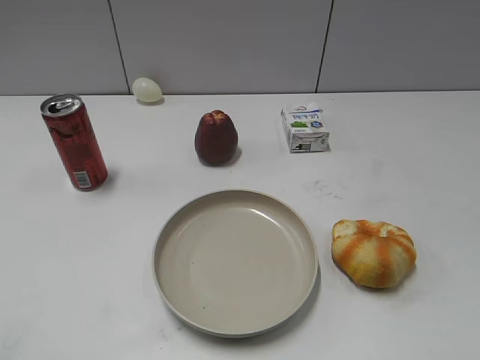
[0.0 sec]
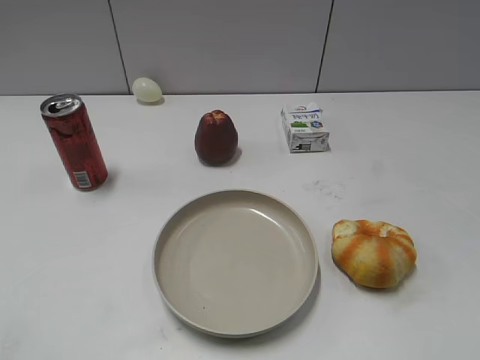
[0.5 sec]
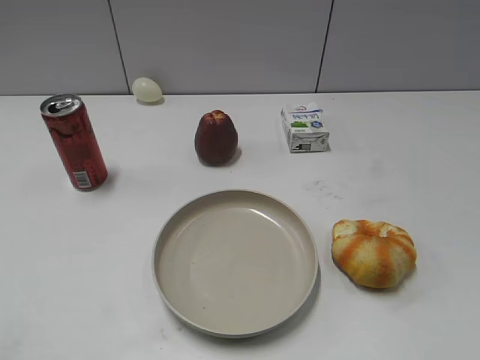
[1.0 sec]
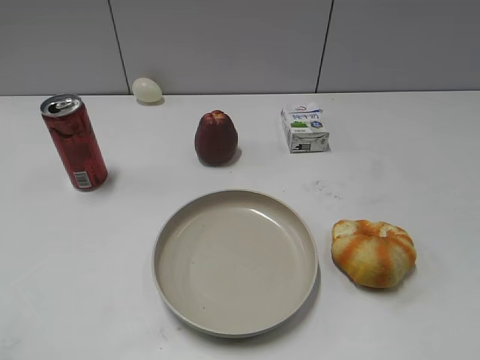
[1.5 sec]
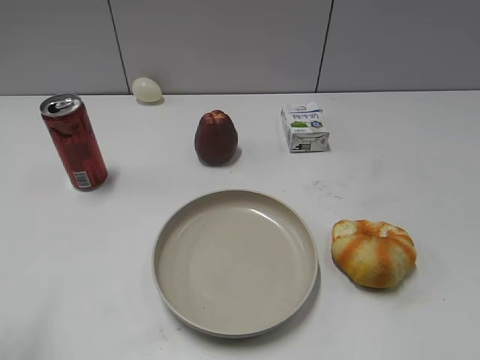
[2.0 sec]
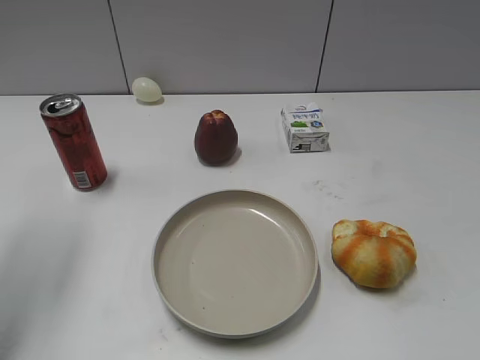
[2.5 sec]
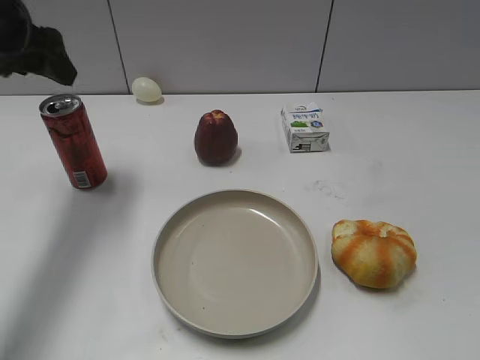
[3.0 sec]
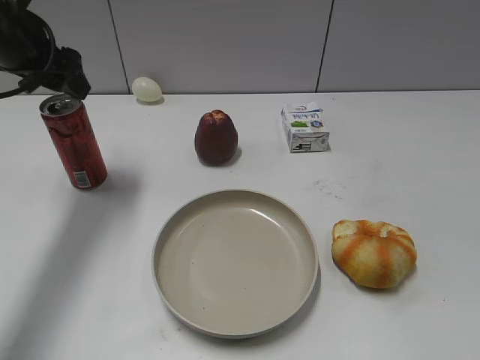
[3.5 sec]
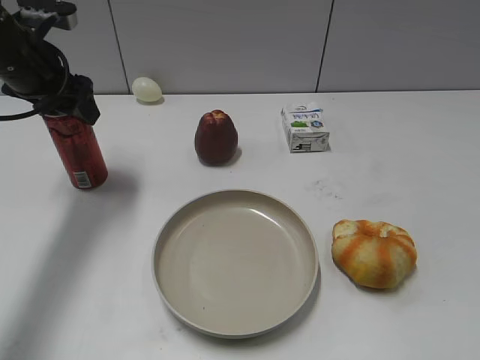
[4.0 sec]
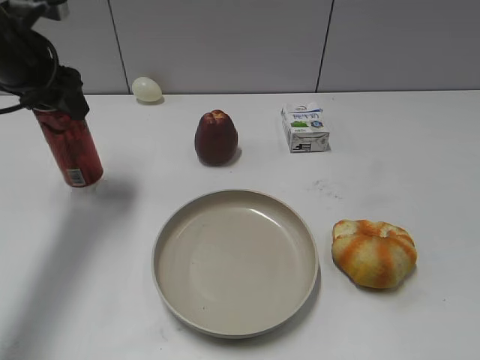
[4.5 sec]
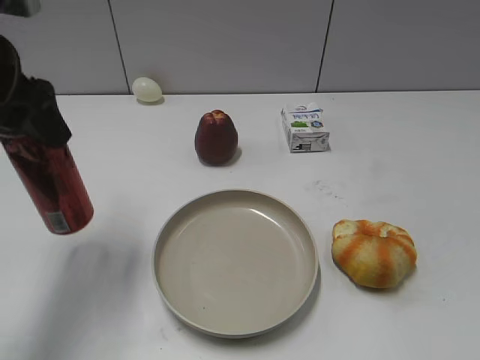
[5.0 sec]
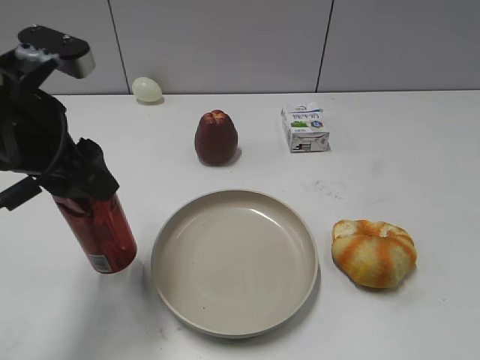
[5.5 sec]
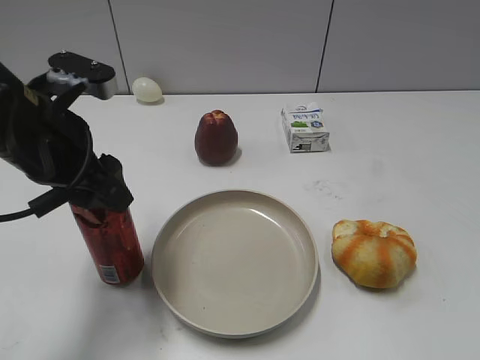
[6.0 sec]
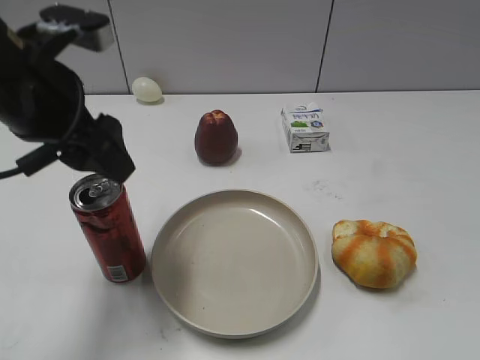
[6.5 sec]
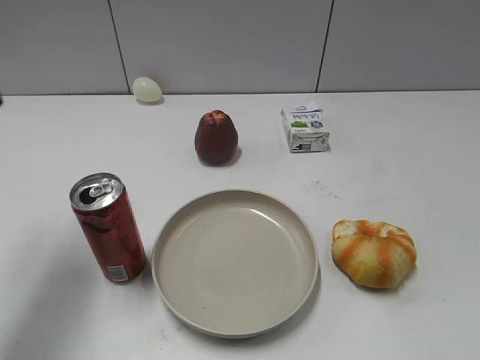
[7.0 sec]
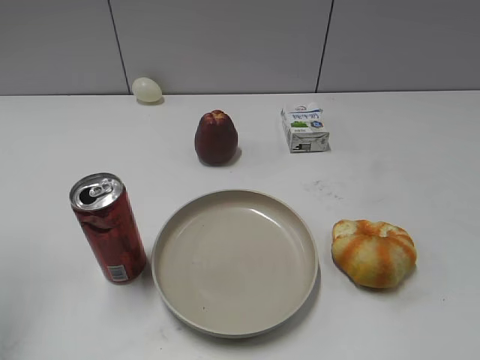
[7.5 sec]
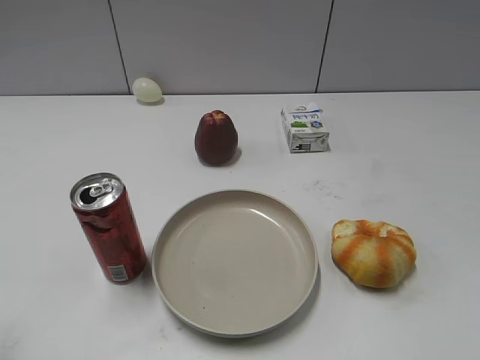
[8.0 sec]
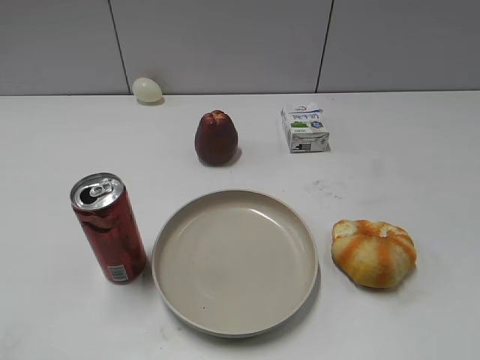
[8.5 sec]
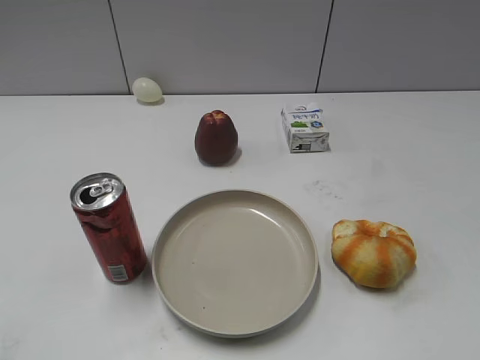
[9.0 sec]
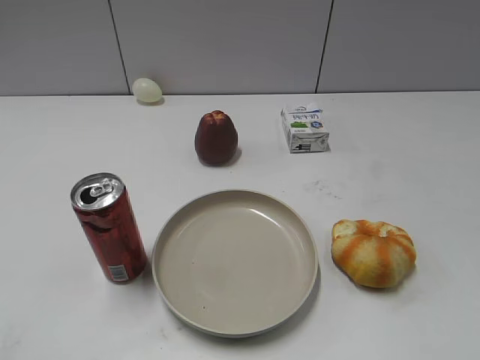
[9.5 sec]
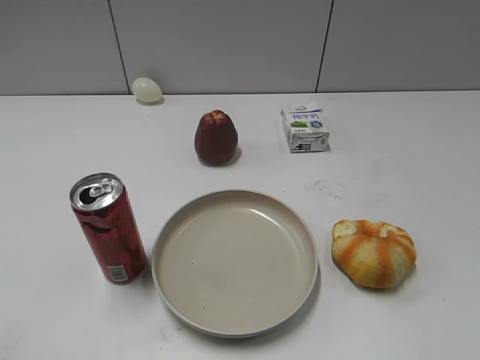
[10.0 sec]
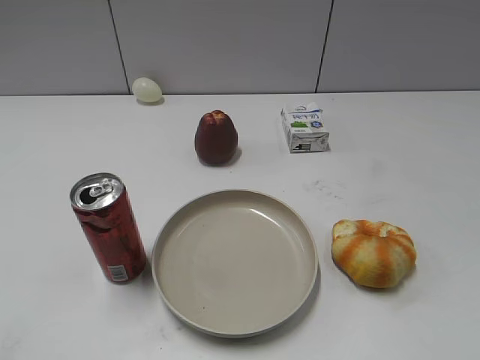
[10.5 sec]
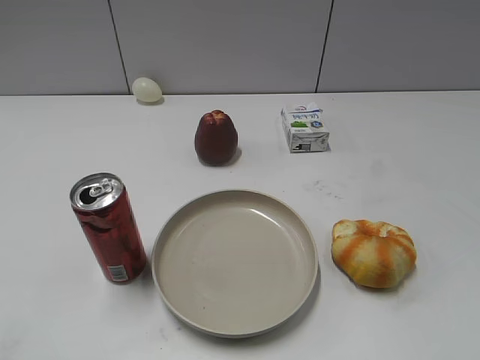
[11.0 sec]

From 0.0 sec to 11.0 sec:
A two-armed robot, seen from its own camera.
Step, from 1.5 sec to 4.0 sec: Grasp the cola with left gripper.
Step, from 4.5 sec to 6.5 sec: Place the cola on the table with left gripper.
From 2.0 sec to 3.5 sec: The left gripper is displaced forward by approximately 30 cm.
From 3.5 sec to 5.5 sec: The left gripper heads backward, covering roughly 15 cm, and closes.
From 5.5 sec to 7.5 sec: The left gripper is displaced to the left and upward by roughly 20 cm, and opens its fingers.
From 7.5 sec to 9.0 sec: The left gripper goes some 25 cm backward and downward.

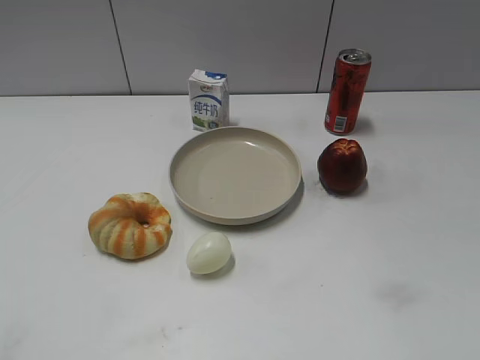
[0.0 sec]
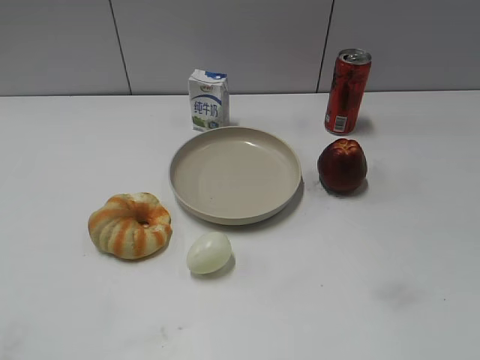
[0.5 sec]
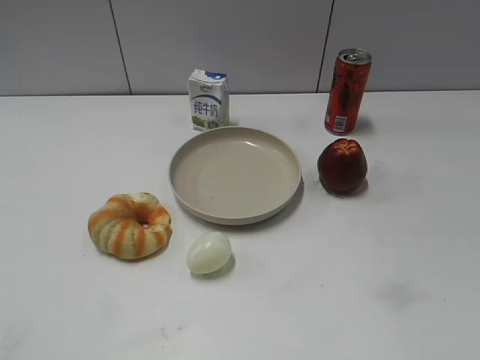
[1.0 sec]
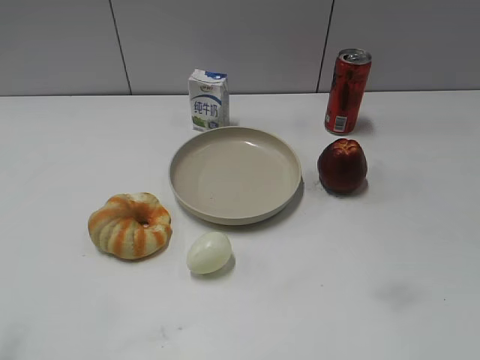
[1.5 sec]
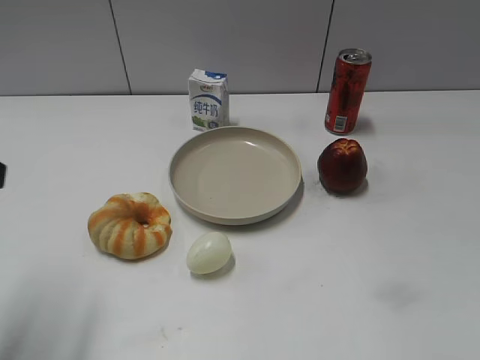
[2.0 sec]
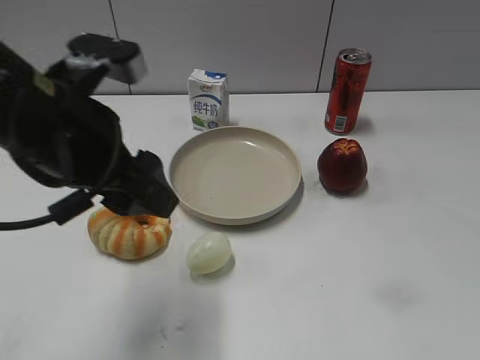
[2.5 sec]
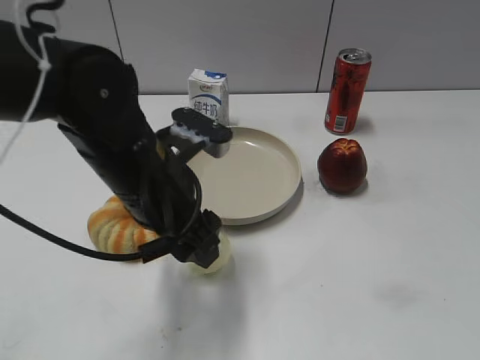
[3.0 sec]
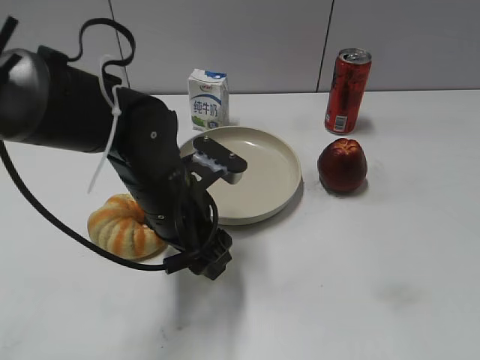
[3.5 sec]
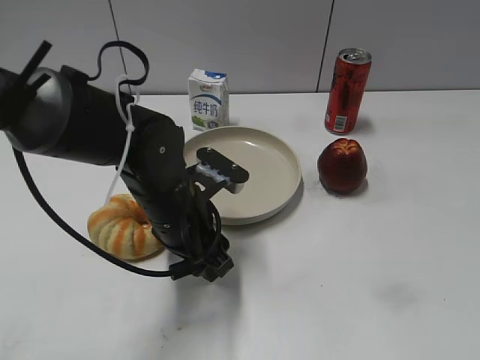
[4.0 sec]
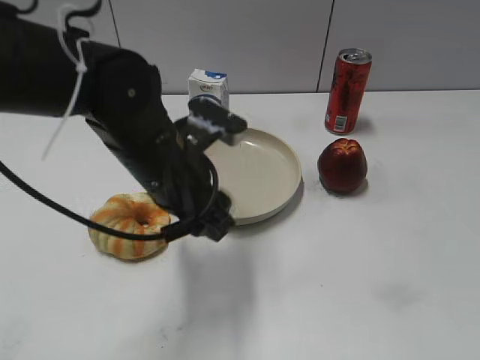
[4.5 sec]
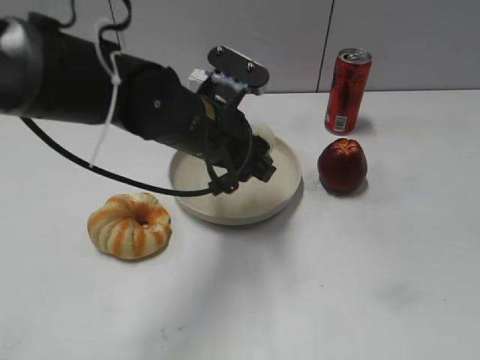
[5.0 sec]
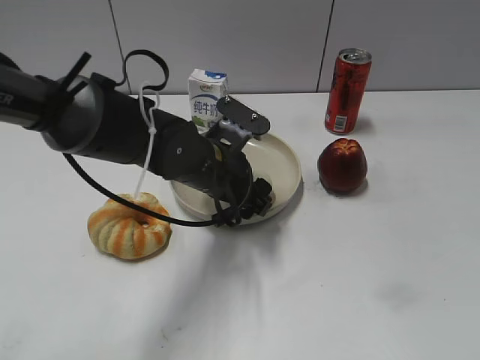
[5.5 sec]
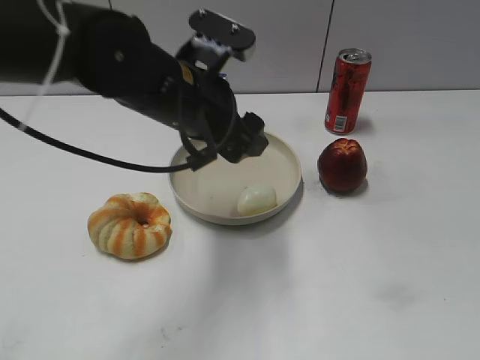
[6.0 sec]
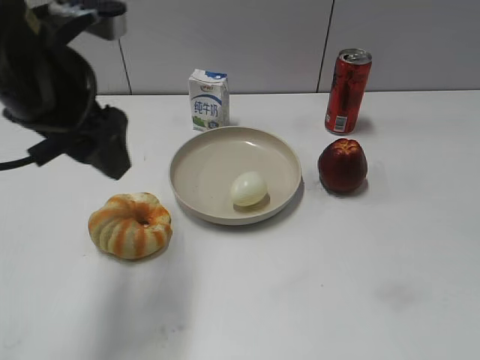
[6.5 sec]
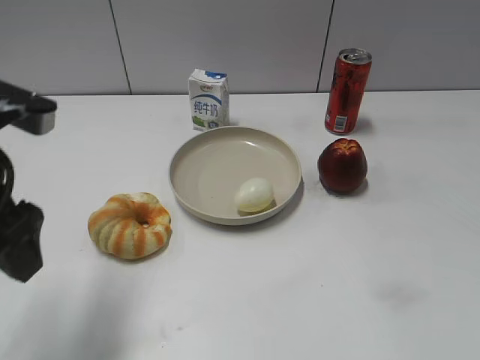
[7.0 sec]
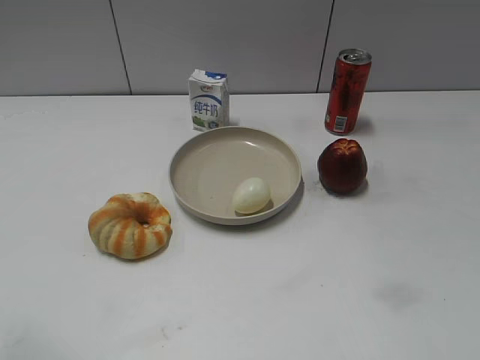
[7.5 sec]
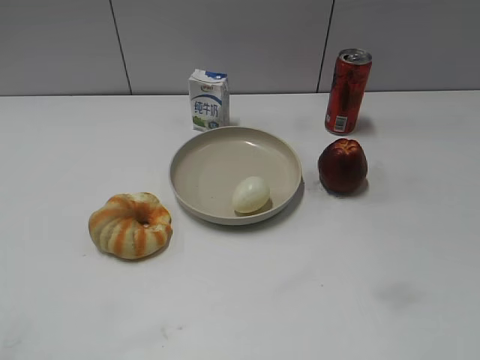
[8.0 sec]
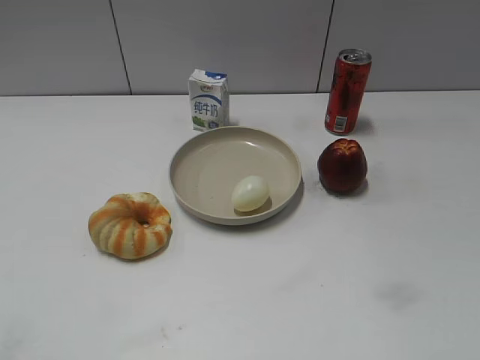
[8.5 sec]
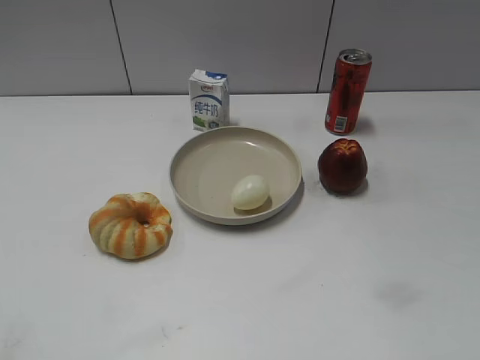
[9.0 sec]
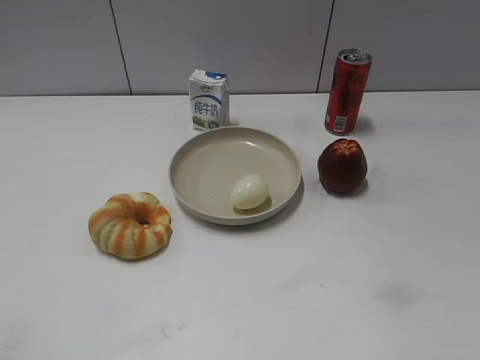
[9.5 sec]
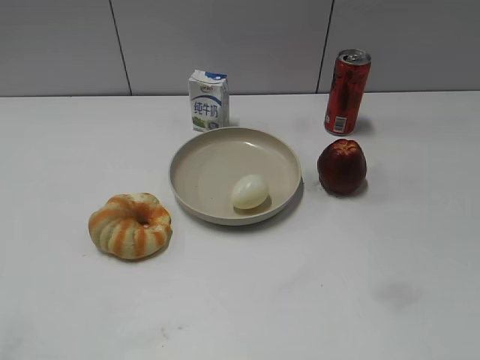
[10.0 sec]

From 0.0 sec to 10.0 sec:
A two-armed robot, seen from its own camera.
Step, from 1.0 sec to 4.0 sec: Grasp the egg with left gripper.
Step, from 4.5 sec to 5.5 sec: Place the egg on the plate with left gripper.
From 2.0 sec to 4.0 sec: The left gripper travels to the right, downward and forward by about 30 cm, and closes up.
From 4.0 sec to 6.0 sec: The left gripper goes up and down, about 10 cm each way, reversing 2 times, and opens.
From 6.0 sec to 8.0 sec: The left gripper is displaced backward and to the left by roughly 35 cm.

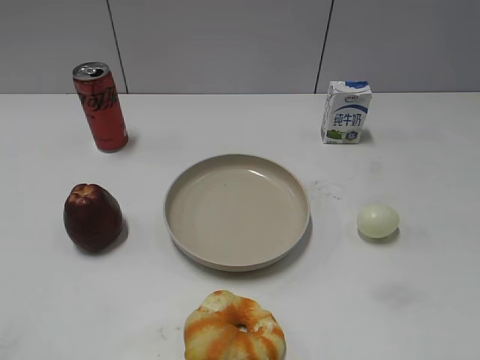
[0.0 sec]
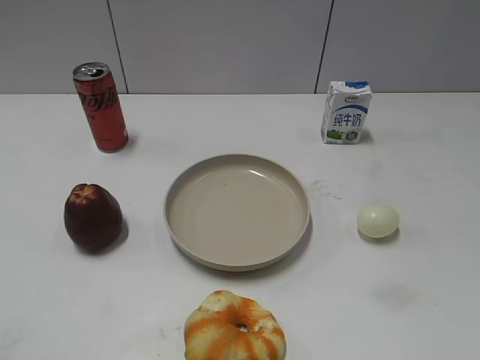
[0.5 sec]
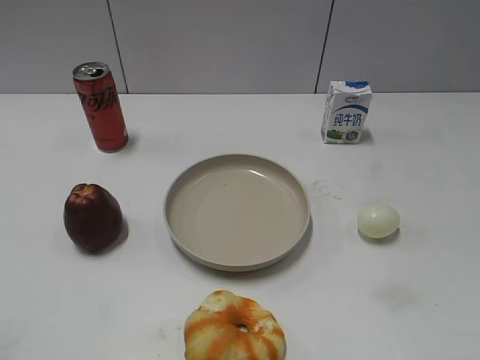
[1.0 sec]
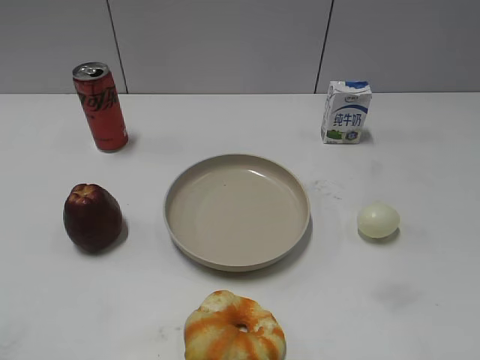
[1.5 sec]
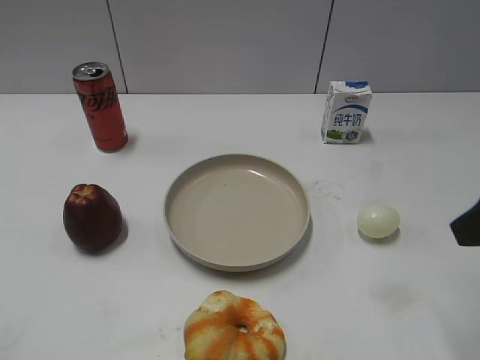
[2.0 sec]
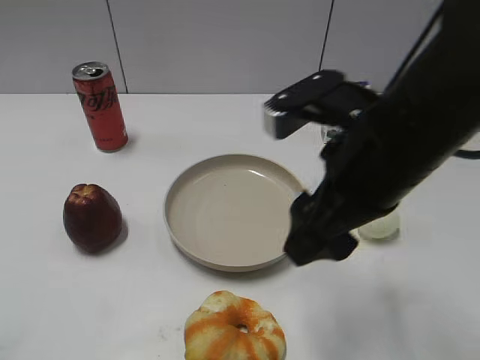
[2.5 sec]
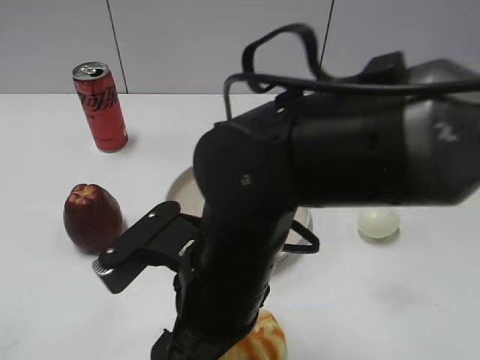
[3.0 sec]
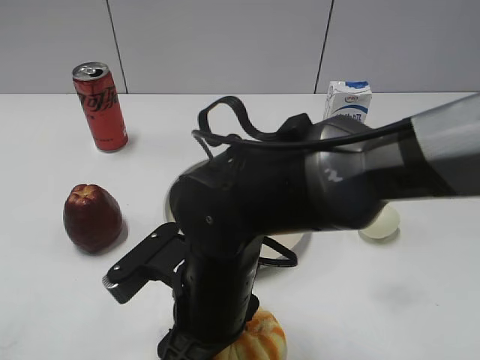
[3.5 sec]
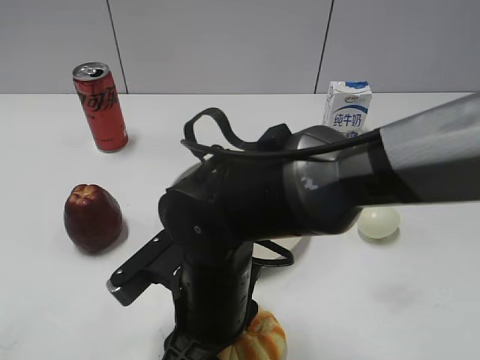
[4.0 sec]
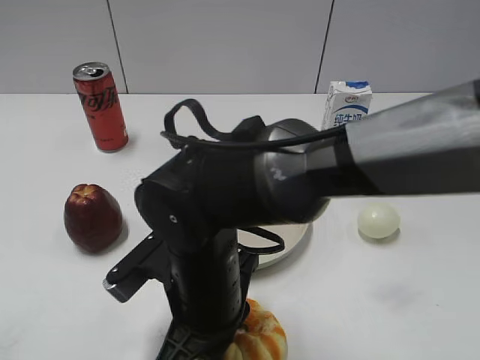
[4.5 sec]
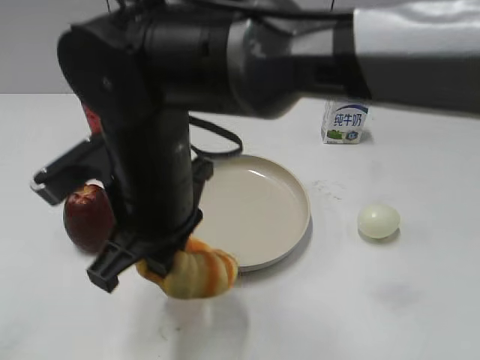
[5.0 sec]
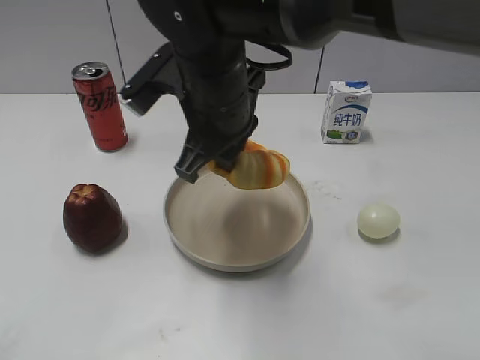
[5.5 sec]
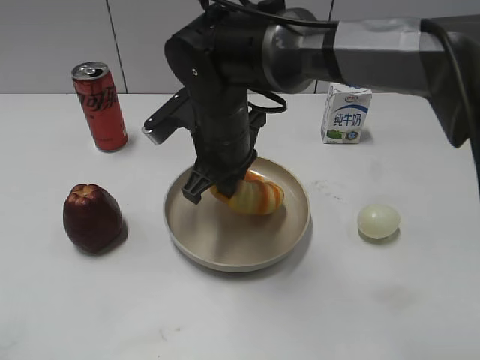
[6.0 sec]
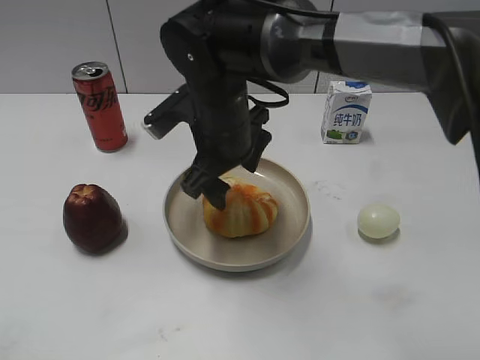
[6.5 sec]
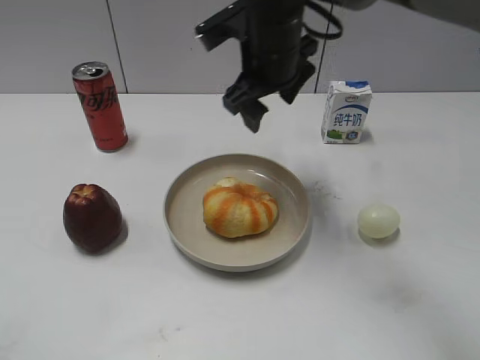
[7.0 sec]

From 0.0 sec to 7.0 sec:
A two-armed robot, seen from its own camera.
Step, from 1.5 sec to 4.0 sec: Grasp the round bread with right gripper.
Step, from 5.0 sec to 6.5 sec: Place the round bread on the plate with right gripper.
From 2.0 sec to 3.5 sec: The right gripper moves to the left and downward, about 30 cm.
From 3.5 sec to 5.0 sec: The right gripper goes roughly 10 cm upward and to the left, and closes.
From 5.0 sec to 7.0 sec: The right gripper travels forward and to the right by roughly 20 cm, and opens up.
